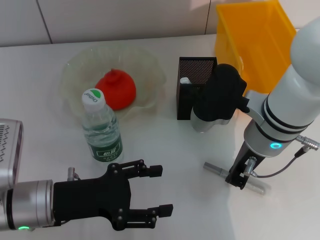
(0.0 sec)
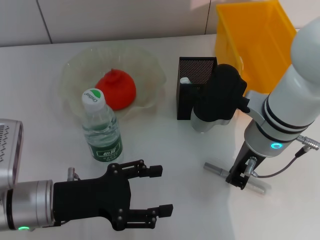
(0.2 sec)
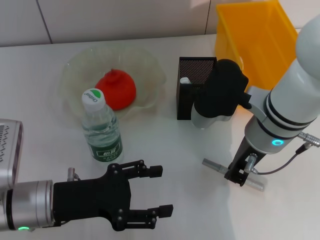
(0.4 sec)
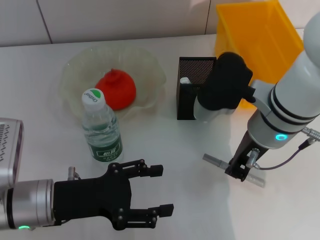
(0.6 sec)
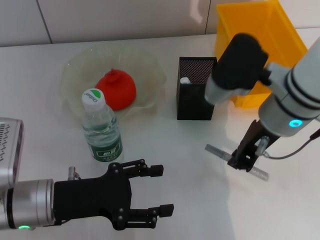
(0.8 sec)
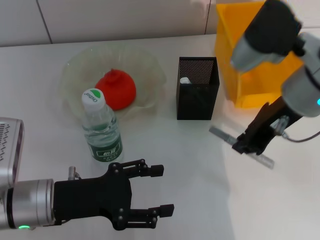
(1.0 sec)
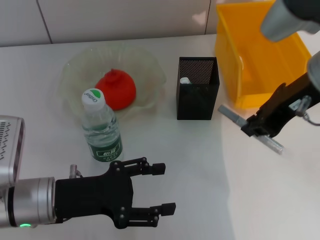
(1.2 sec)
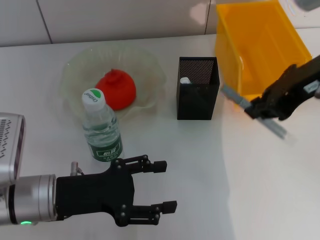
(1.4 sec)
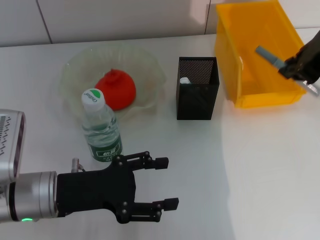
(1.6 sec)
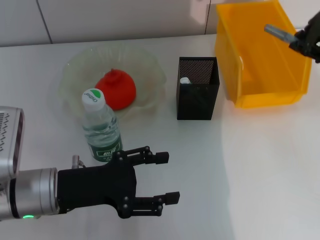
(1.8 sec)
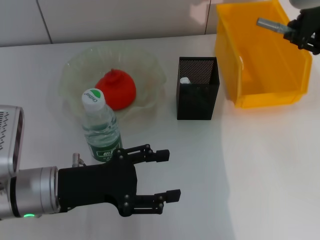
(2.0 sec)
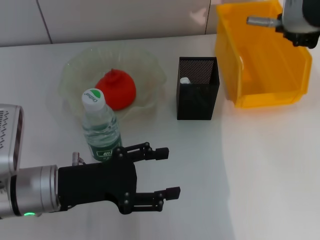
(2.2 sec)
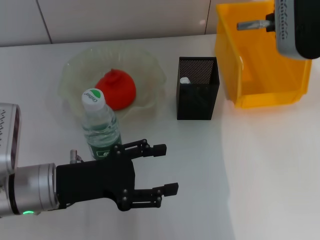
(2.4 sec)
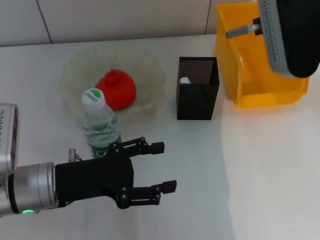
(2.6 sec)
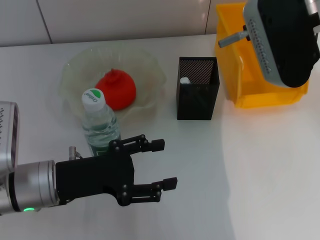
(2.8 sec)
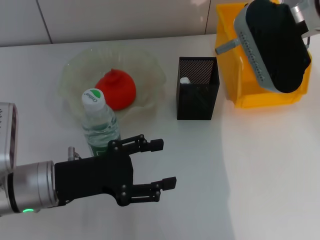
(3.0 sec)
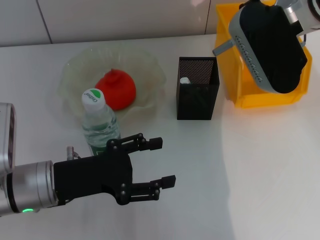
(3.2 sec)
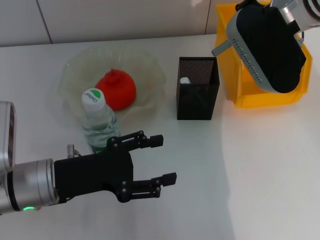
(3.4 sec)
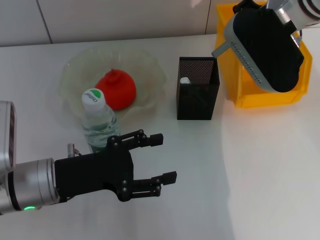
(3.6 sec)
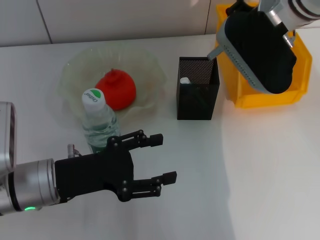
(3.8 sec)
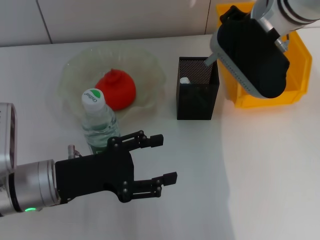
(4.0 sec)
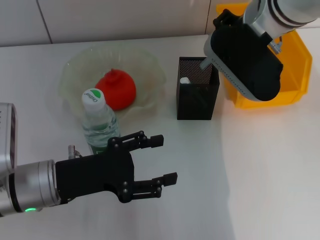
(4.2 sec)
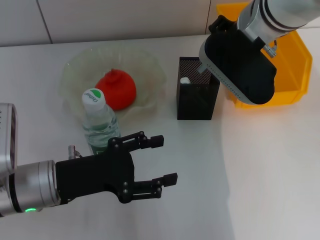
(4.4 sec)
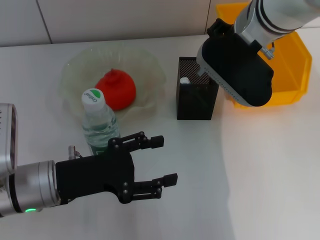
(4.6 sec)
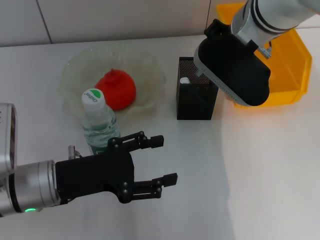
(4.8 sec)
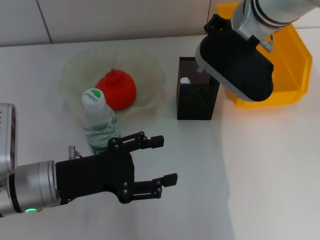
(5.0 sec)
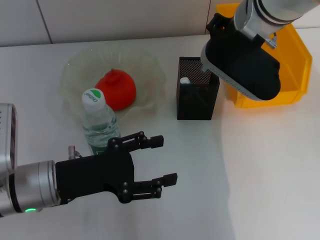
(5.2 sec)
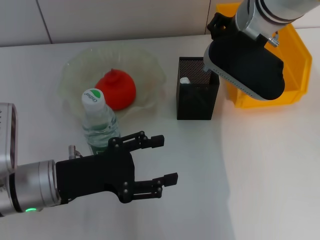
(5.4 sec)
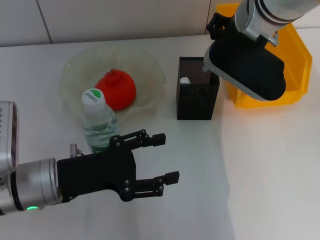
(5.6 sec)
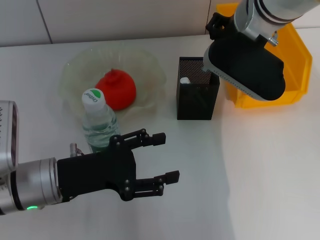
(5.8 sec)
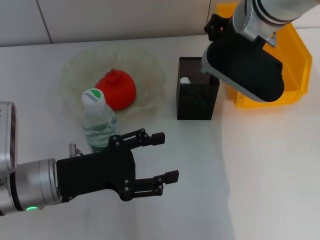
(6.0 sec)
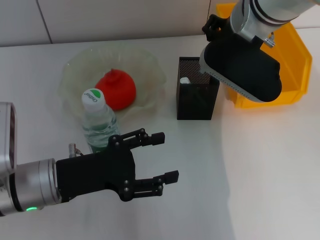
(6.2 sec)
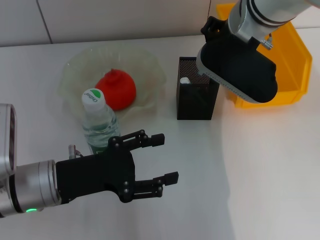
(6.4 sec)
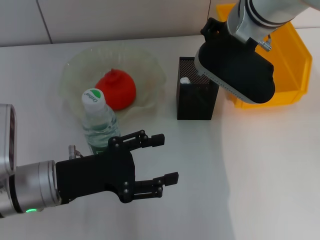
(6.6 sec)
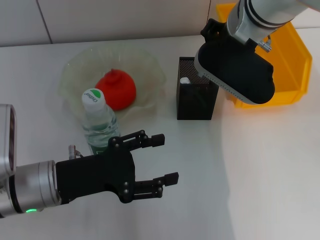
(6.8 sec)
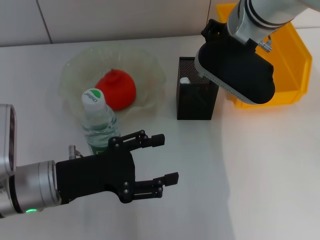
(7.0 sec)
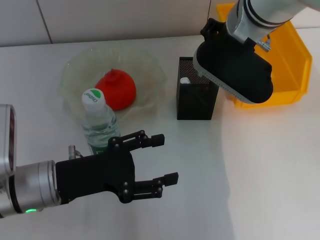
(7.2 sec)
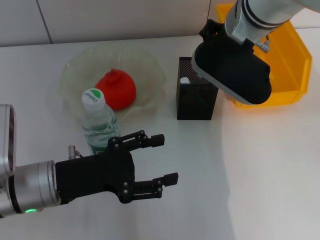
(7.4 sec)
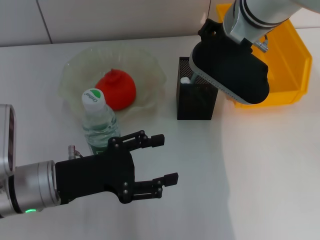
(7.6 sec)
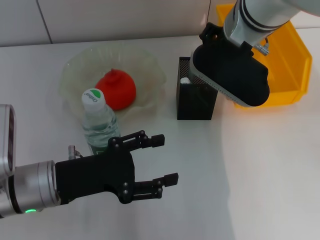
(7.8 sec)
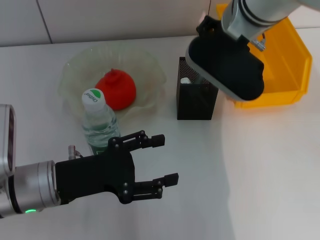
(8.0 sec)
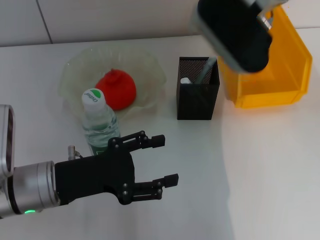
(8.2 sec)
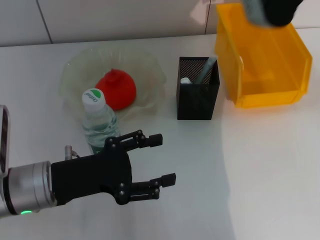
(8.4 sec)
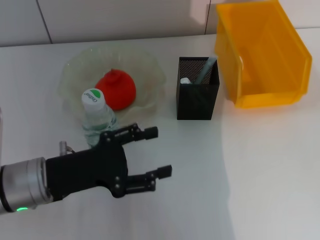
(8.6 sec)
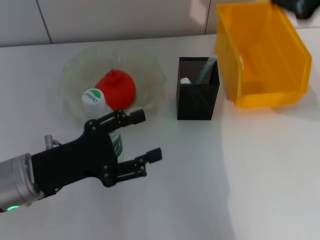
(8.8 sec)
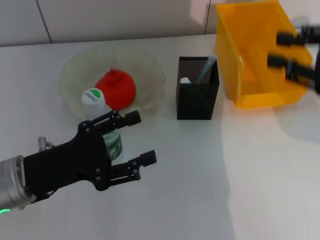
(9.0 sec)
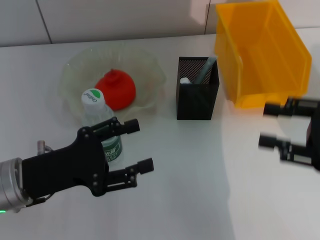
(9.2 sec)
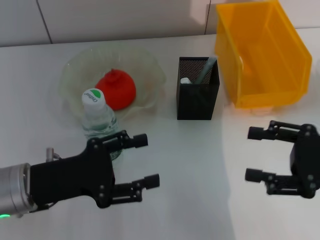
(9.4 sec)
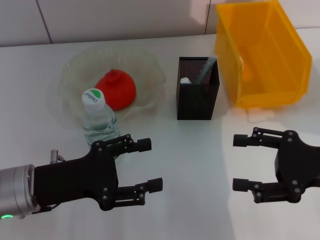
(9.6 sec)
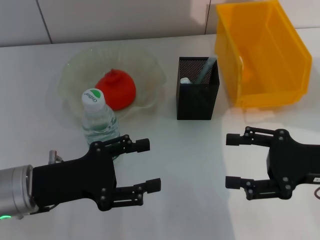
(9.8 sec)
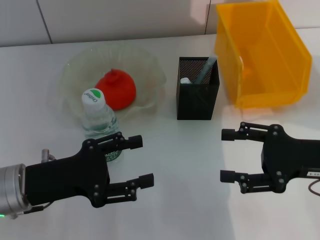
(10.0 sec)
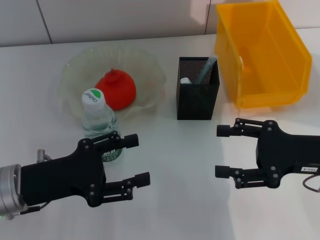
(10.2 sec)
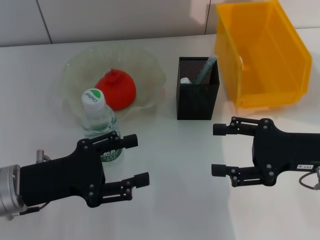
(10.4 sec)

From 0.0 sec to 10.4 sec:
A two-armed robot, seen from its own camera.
Step, from 0.0 sec to 8.2 sec: Place the gray glue into the pen holder with the right hand.
From 0.0 sec to 1.4 sec: The right gripper heads upward and to the right, covering approximately 15 cm.
From 1.4 sec to 3.0 sec: The right gripper goes approximately 5 cm forward.
From 3.0 sec to 4.4 sec: The right gripper shifts by about 5 cm.
From 4.4 sec to 6.0 sec: There are only small adjustments of the grippers.
From 6.0 sec to 7.4 sec: Both grippers stay put.
From 7.4 sec to 9.0 sec: The right gripper goes approximately 25 cm to the right and backward.
From 9.0 sec to 10.4 sec: The right gripper is displaced downward by about 10 cm, and opens up.

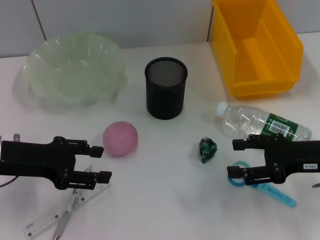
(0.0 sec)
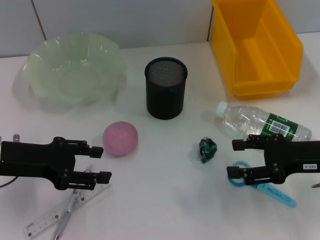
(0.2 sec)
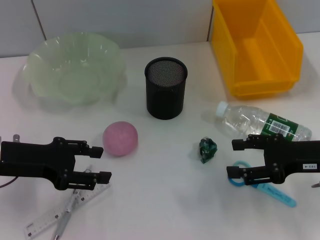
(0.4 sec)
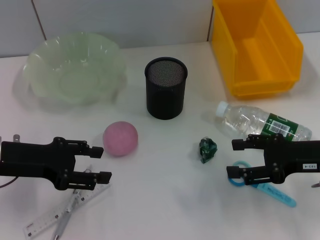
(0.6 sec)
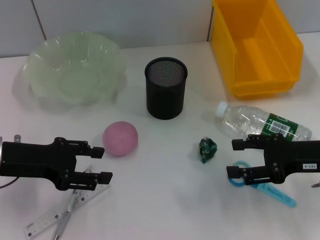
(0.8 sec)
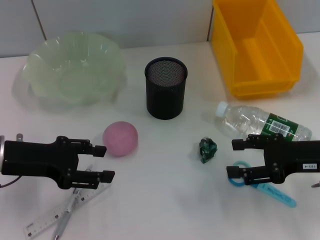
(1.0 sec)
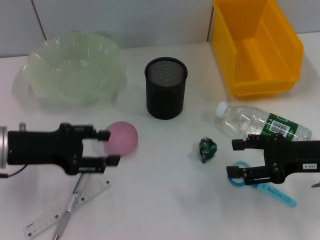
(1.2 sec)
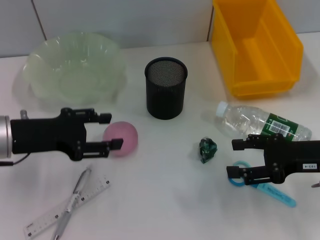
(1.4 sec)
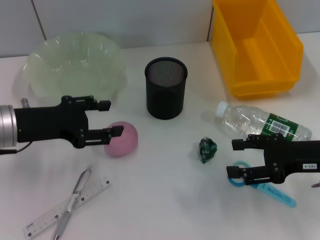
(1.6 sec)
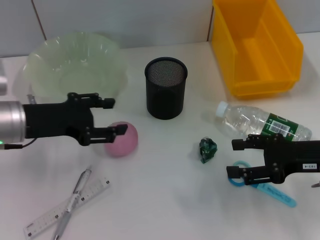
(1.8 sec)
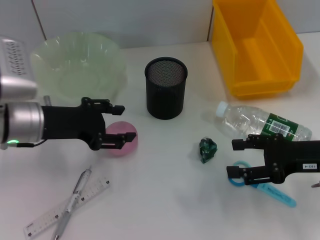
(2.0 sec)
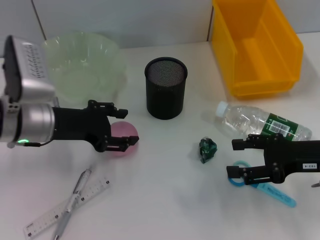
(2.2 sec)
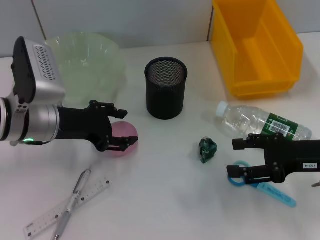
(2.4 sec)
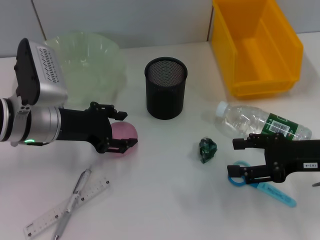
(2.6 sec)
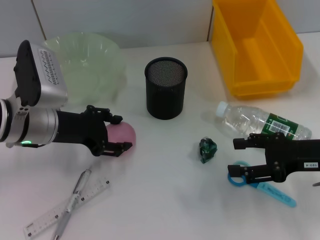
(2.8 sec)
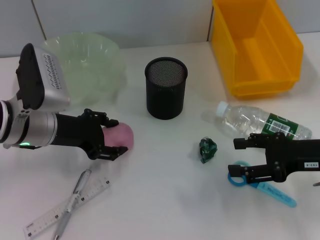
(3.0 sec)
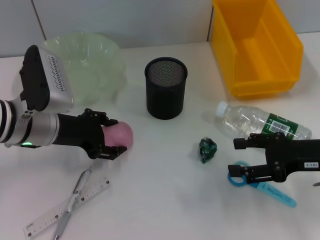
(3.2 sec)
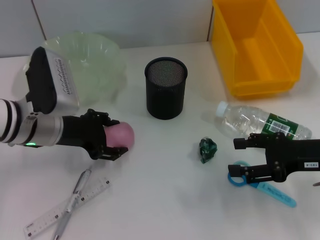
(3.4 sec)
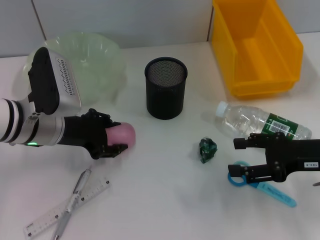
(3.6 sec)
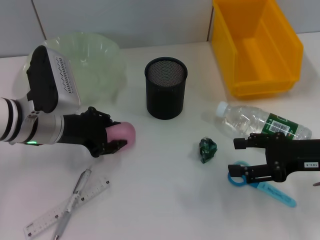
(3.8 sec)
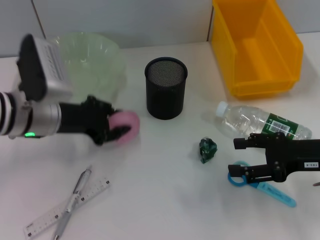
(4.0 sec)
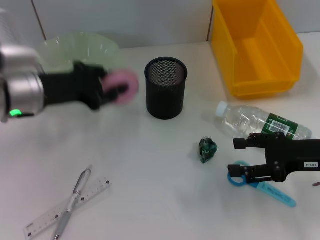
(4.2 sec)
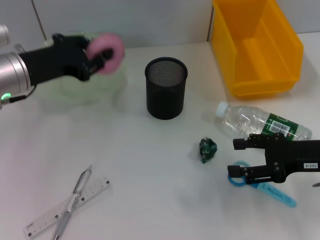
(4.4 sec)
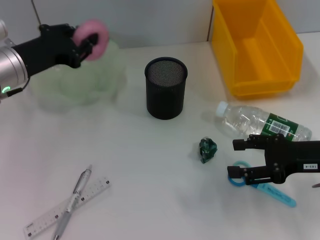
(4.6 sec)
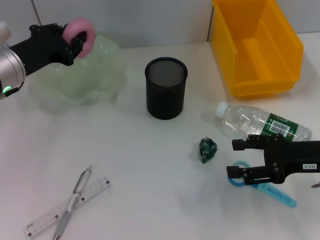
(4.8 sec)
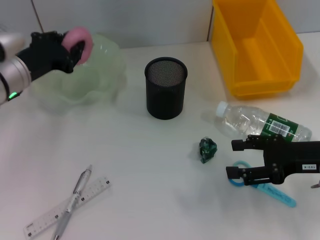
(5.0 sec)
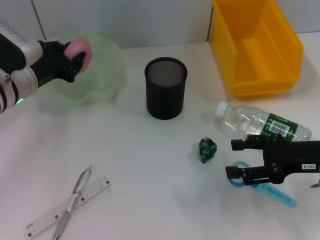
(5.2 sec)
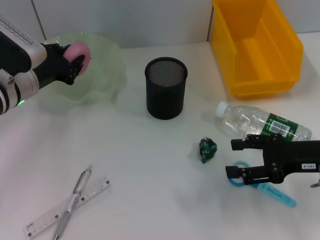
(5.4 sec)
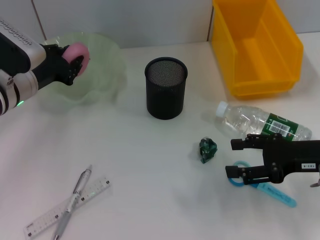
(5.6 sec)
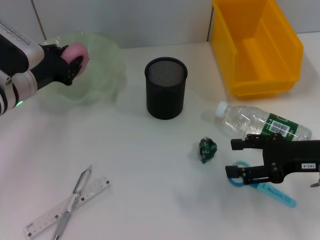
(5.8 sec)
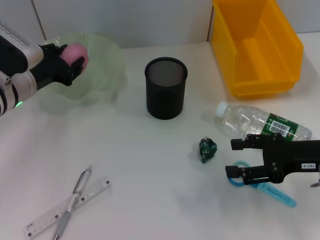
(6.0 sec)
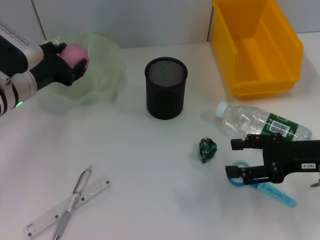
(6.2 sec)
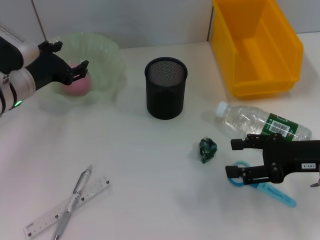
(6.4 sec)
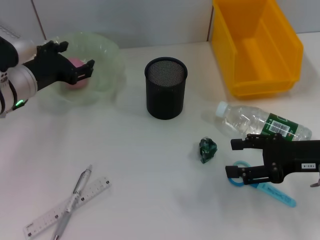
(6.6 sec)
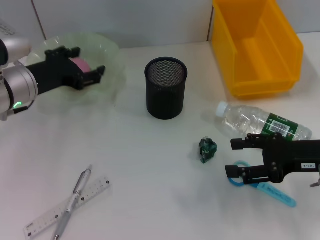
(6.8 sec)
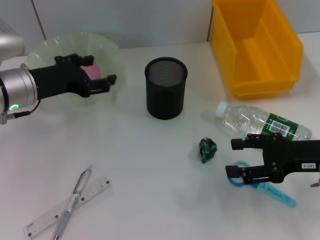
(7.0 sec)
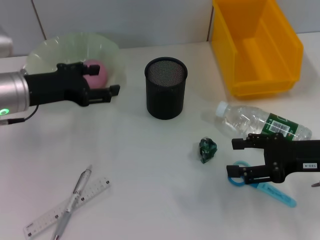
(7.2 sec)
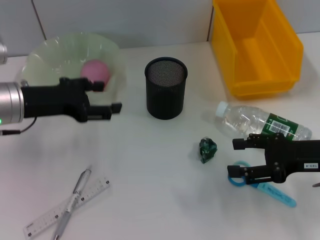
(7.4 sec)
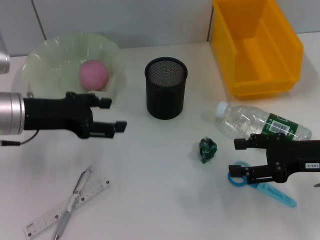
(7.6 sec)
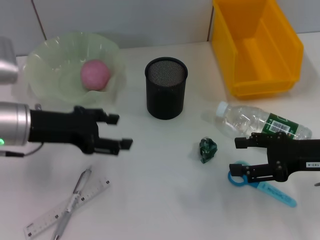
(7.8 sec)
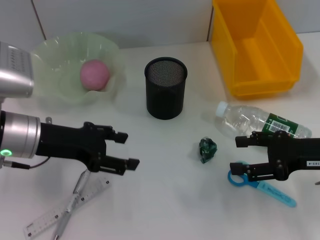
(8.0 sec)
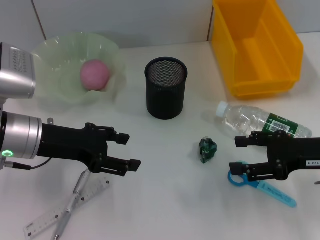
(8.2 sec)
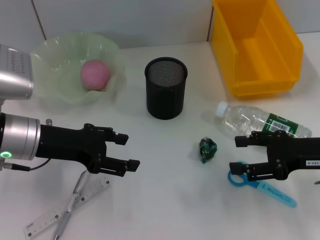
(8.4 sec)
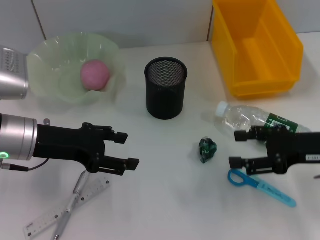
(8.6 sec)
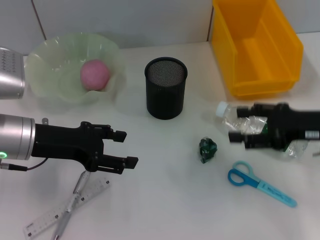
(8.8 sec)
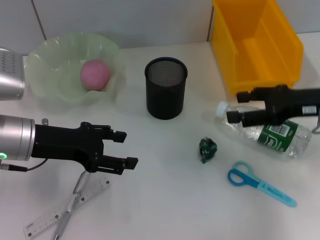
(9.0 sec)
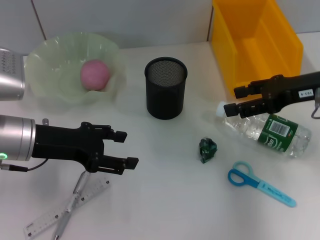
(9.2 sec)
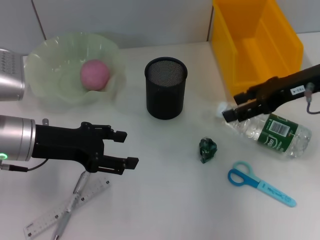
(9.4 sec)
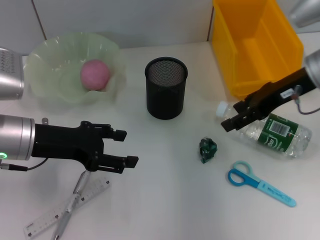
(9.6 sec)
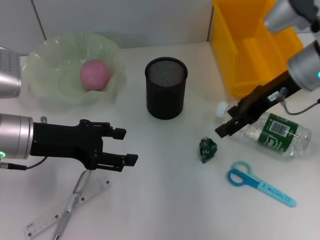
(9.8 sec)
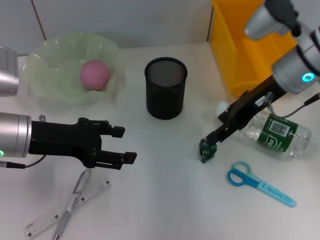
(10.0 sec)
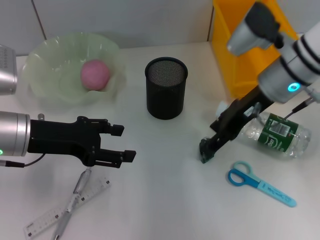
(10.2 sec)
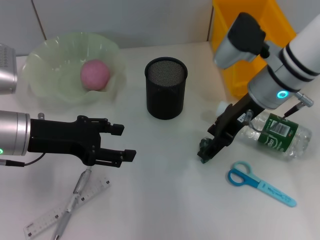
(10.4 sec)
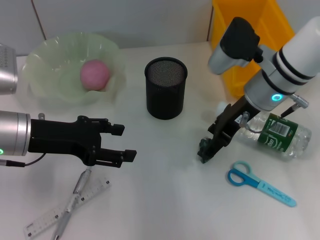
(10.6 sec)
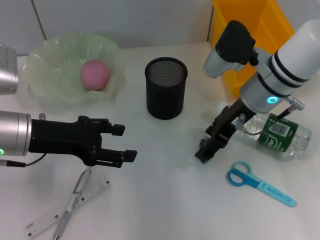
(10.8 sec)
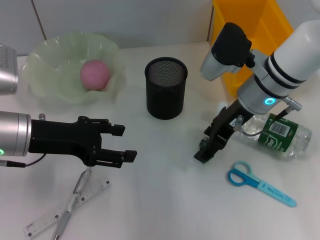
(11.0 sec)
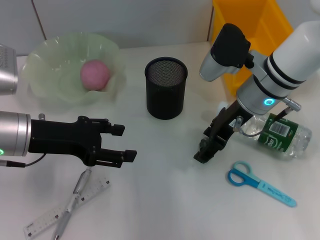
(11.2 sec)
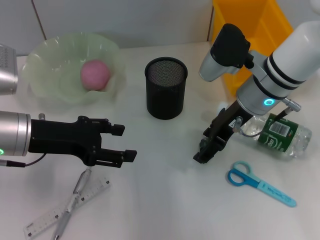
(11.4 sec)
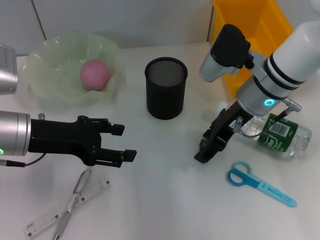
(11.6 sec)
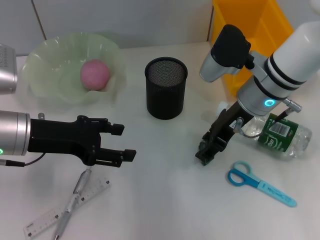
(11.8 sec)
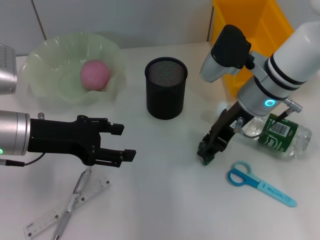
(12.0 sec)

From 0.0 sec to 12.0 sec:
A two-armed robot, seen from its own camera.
Step, from 0.0 sec to 3.6 sec: Grab the peach with the left hand.
Step, from 3.8 sec to 6.8 sec: Place the peach into the fruit bowl with the left hand.
From 0.0 sec to 1.6 sec: The grippers make only small movements.
From 1.6 sec to 3.0 sec: The left gripper shifts by approximately 5 cm.
From 3.0 sec to 4.4 sec: The left gripper shifts by about 5 cm, and closes its fingers.
From 4.4 sec to 6.0 sec: The left gripper changes place by about 5 cm.
From 6.0 sec to 7.6 sec: The left gripper changes place by roughly 5 cm, and opens.
From 7.6 sec to 9.0 sec: The right gripper travels upward and forward by roughly 10 cm.
From 9.0 sec to 10.4 sec: The right gripper heads to the left and forward, covering roughly 15 cm.
From 10.4 sec to 12.0 sec: The right gripper closes.
